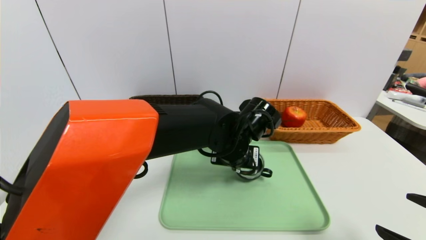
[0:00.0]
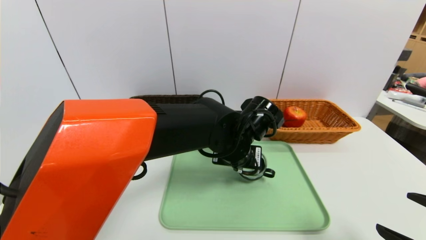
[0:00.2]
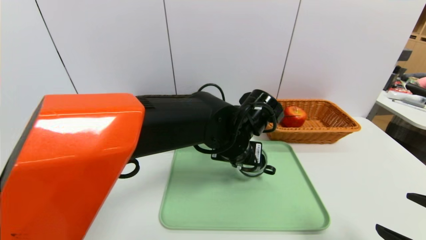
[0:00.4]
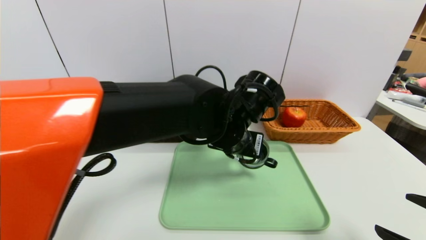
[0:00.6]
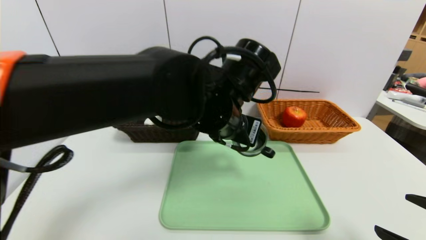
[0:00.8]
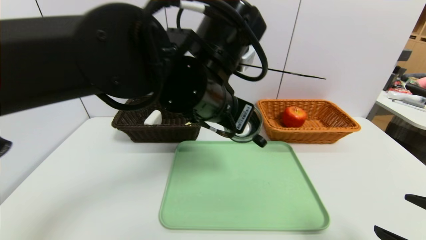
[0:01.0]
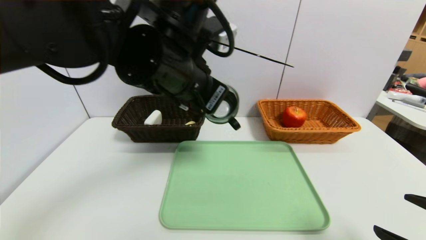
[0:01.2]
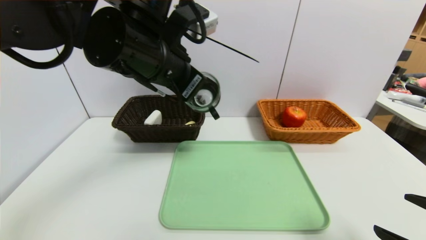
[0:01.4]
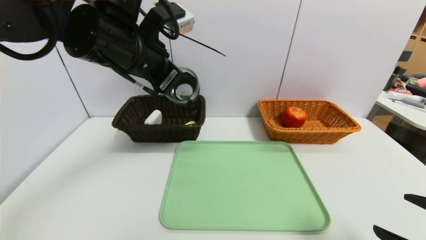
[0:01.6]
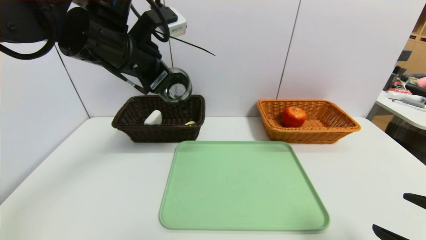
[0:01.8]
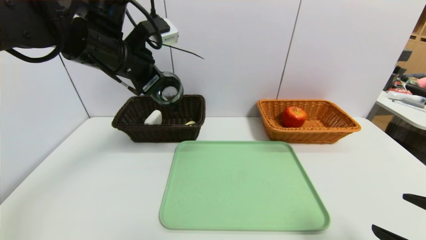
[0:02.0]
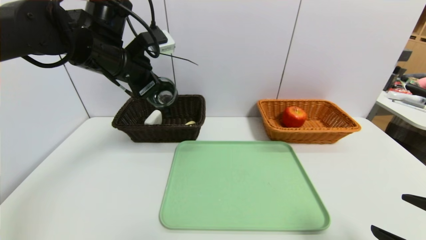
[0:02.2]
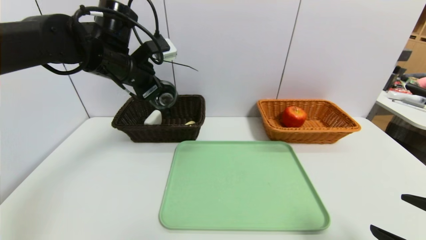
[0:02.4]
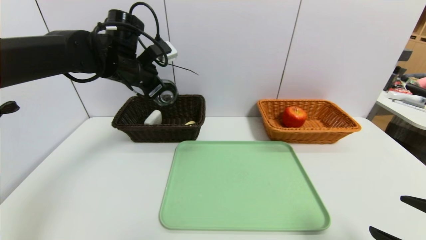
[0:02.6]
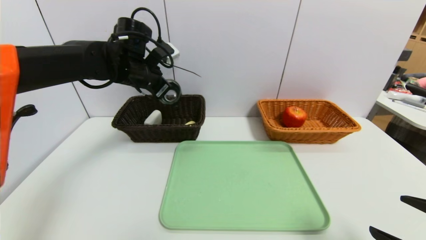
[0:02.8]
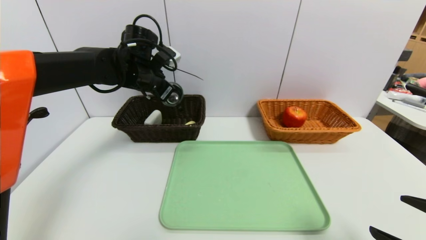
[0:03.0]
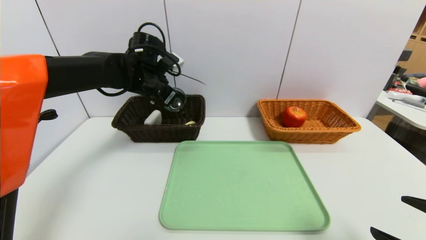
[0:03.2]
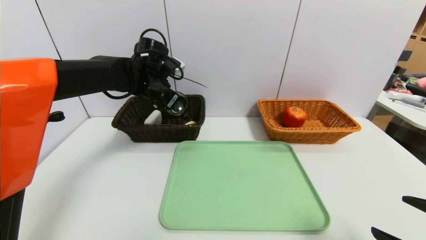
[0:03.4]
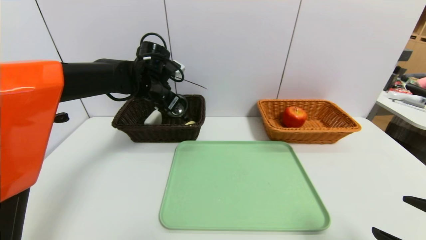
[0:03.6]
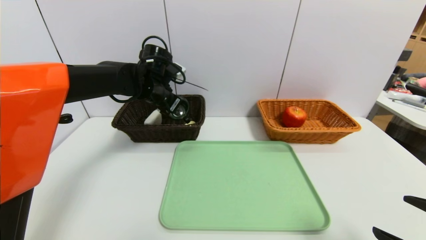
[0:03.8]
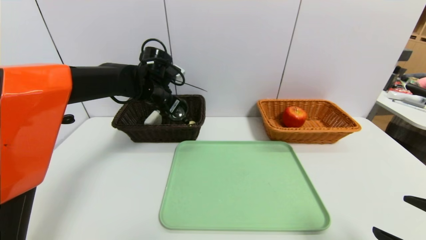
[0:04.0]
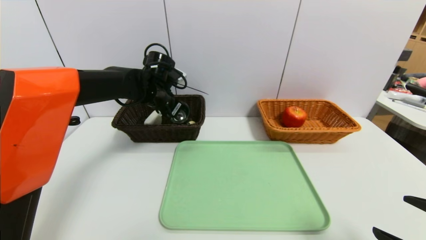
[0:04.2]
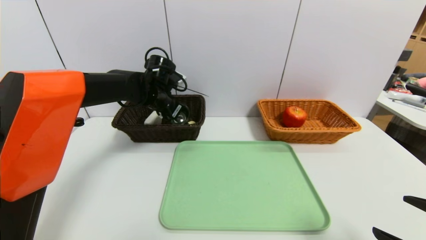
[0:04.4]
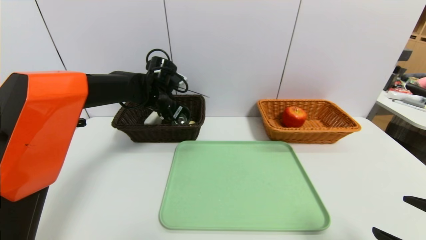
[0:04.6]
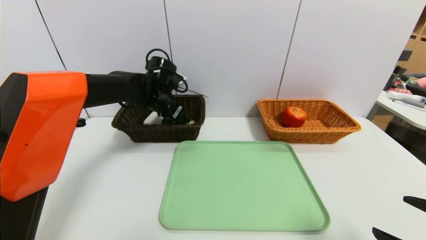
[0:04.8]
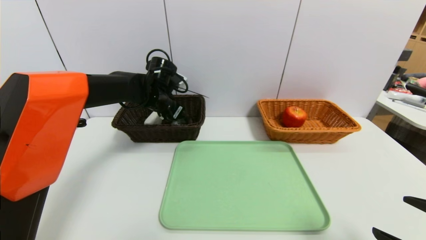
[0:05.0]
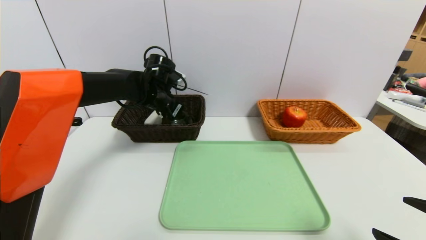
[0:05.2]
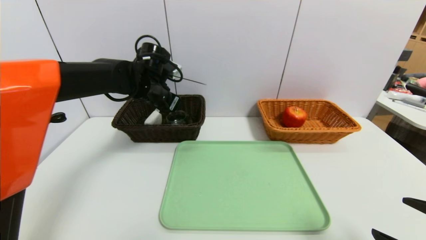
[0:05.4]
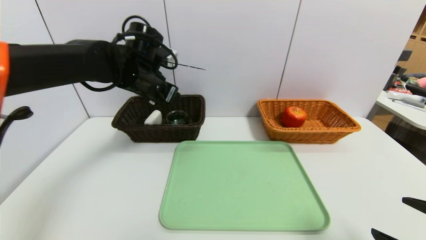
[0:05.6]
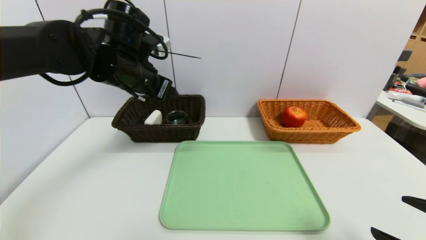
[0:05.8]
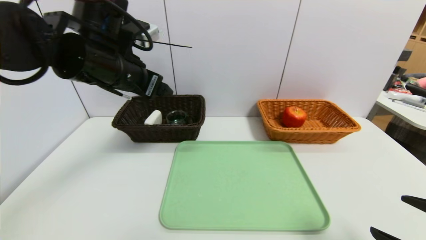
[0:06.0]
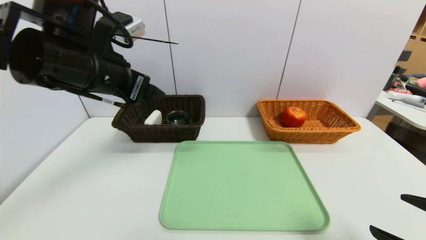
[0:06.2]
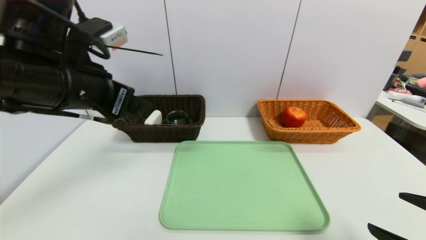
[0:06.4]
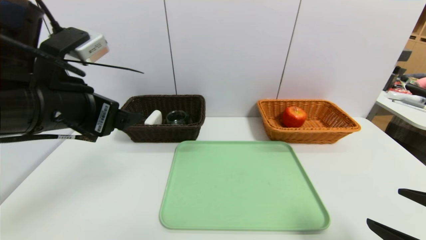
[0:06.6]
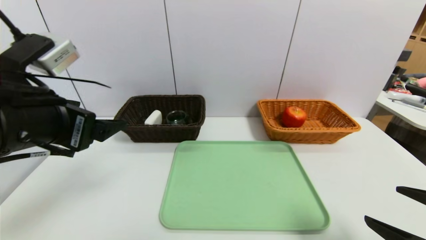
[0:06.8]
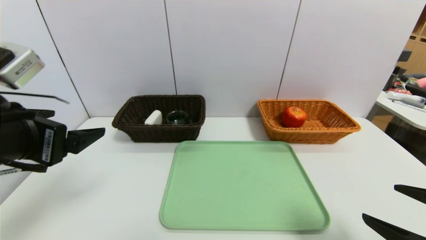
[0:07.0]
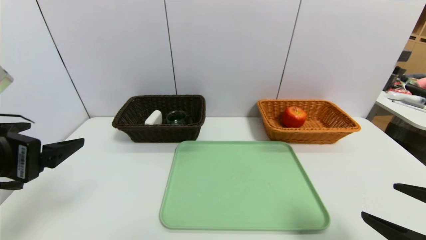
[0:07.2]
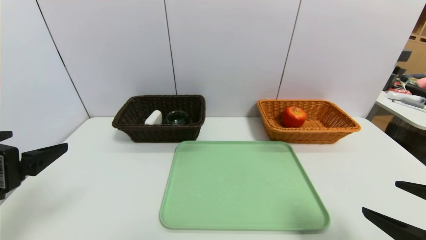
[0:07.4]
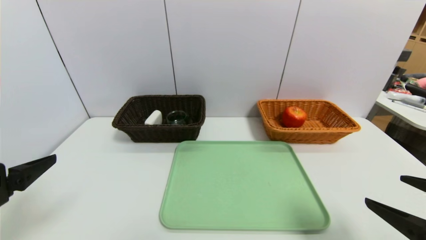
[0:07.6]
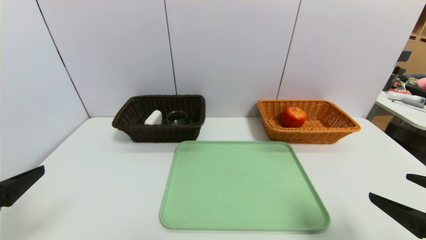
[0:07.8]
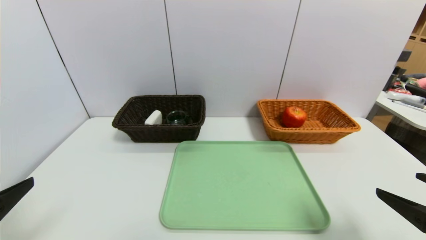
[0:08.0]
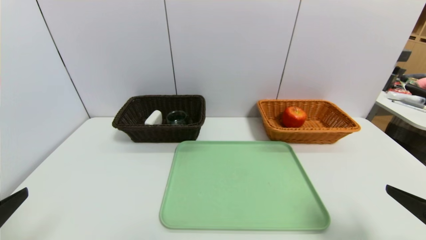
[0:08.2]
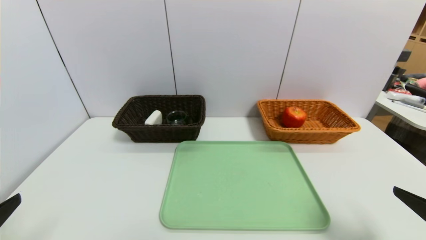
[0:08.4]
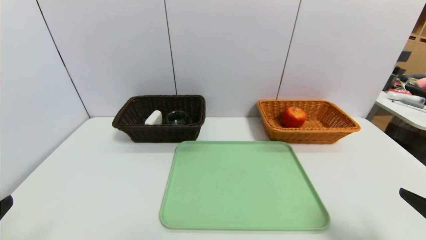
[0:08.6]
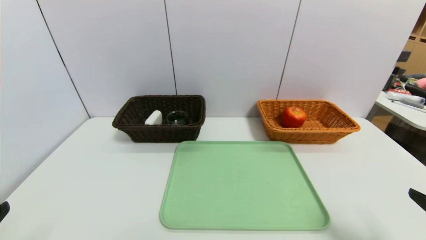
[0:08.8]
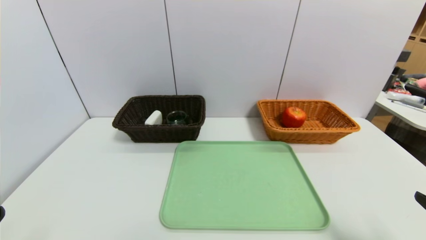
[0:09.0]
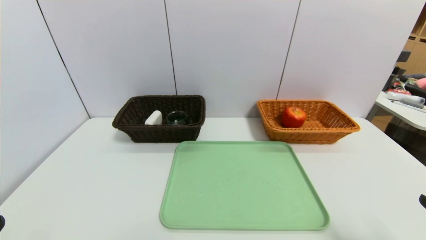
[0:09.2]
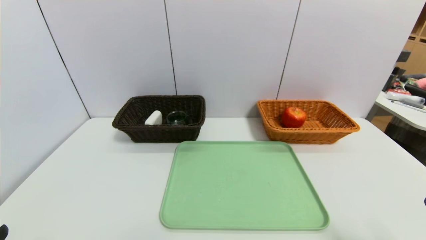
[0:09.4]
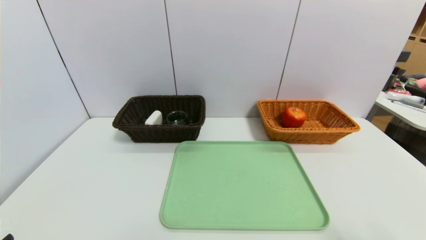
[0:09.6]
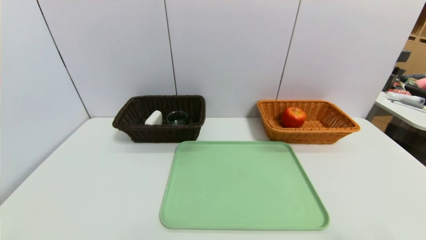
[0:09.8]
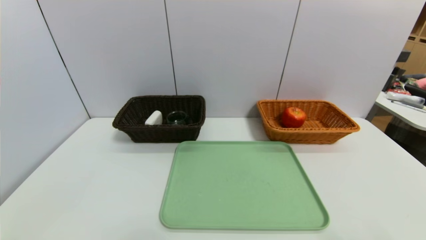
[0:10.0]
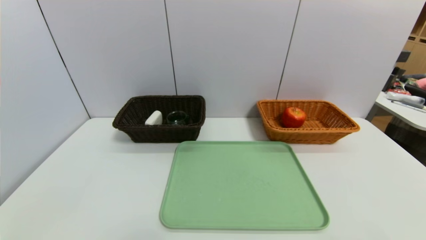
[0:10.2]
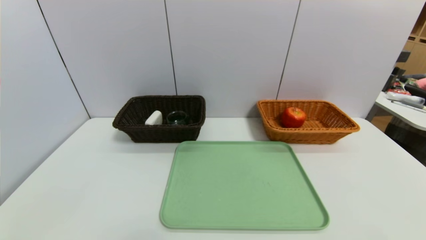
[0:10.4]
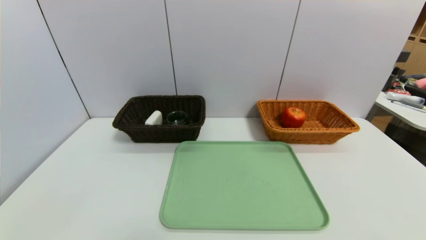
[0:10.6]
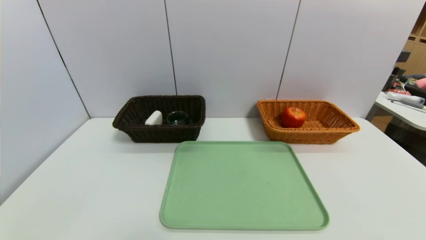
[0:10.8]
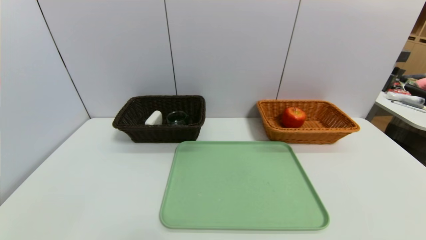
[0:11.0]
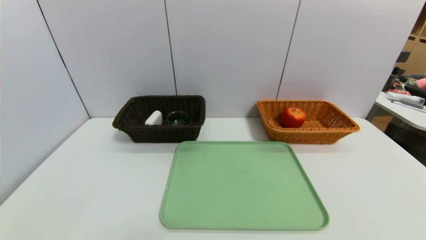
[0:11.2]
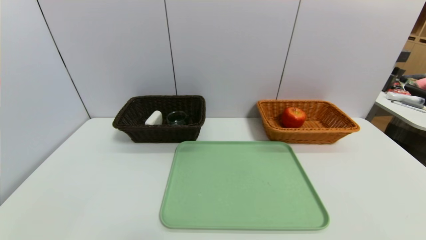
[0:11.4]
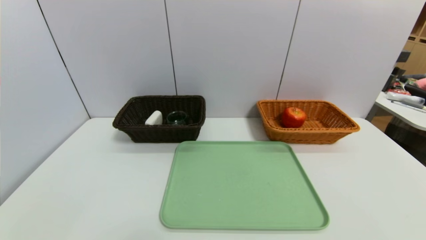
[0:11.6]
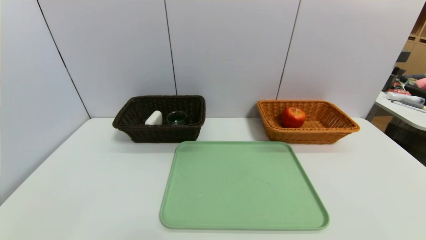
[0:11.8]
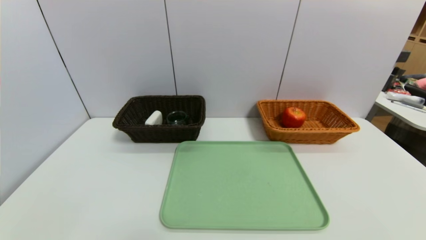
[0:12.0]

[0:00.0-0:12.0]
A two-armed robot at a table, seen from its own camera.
Task of the whole recording: place the food in the right basket with the right gripper, and place the non food items in the left basket with the left gripper.
Step, 0:00.0 to 0:06.0: Grasp the black glass cup and put it in the left basket.
0:00.0 to 0:01.6: The left gripper shifts some 25 cm upward and to the left.
0:01.6 to 0:03.0: The left gripper moves forward and downward, approximately 15 cm.
0:03.0 to 0:04.4: The left gripper shifts approximately 5 cm downward.
0:04.4 to 0:06.0: The left gripper travels backward and upward by about 20 cm, and opens.
0:06.0 to 0:07.6: The left gripper travels backward and to the left by some 25 cm.
0:07.6 to 0:09.0: The left gripper is displaced backward and downward by roughly 10 cm.
0:09.0 to 0:10.4: The right gripper travels backward by approximately 5 cm.

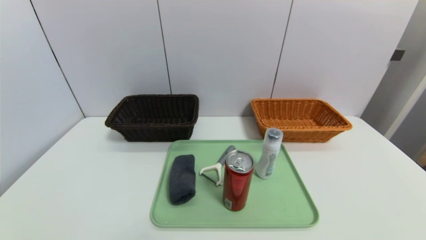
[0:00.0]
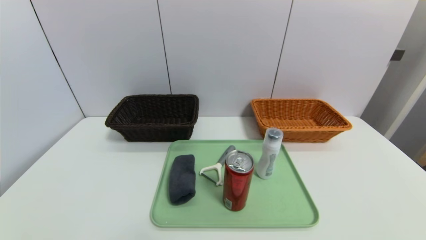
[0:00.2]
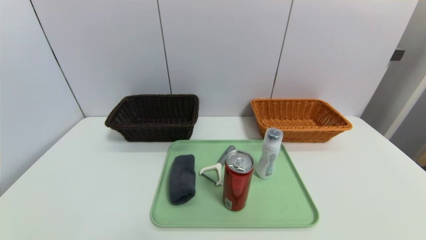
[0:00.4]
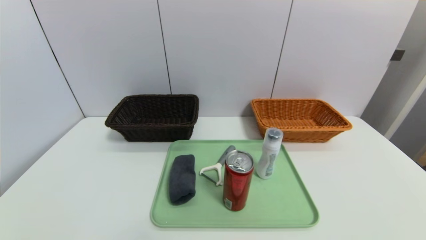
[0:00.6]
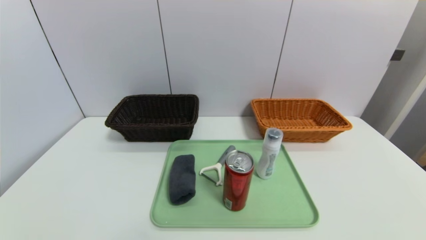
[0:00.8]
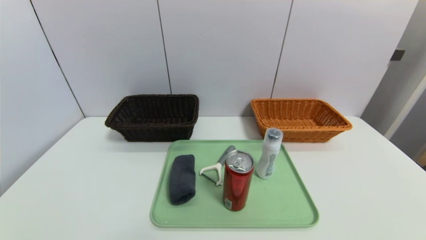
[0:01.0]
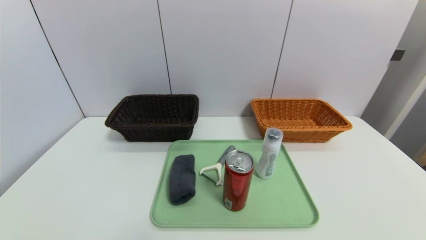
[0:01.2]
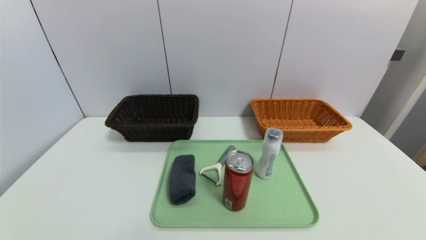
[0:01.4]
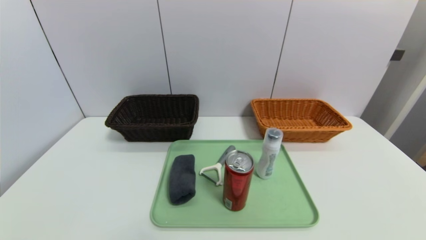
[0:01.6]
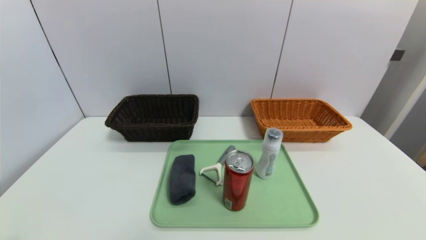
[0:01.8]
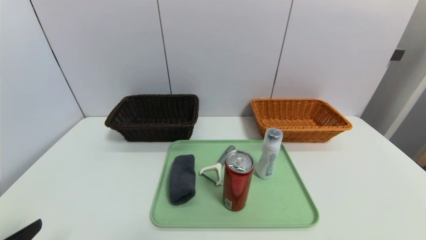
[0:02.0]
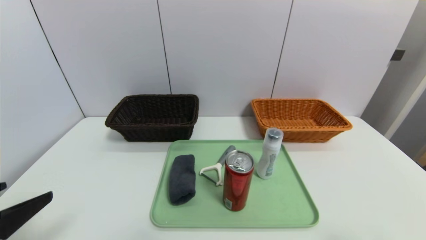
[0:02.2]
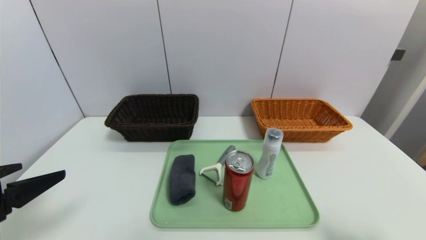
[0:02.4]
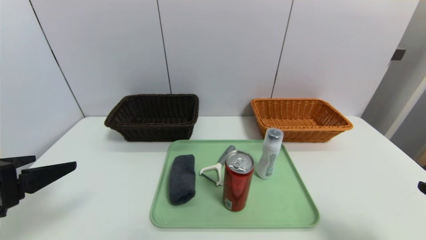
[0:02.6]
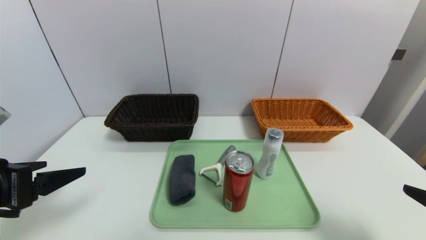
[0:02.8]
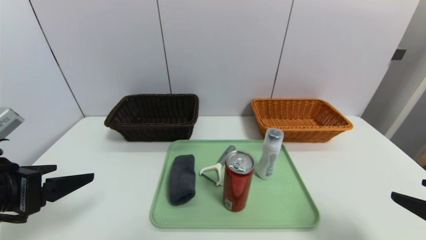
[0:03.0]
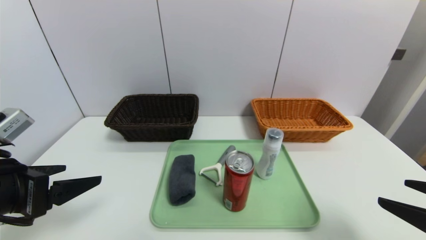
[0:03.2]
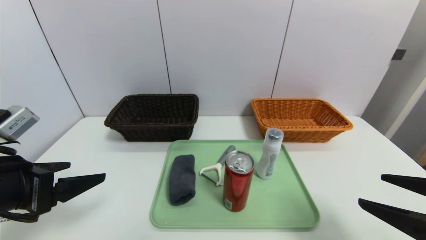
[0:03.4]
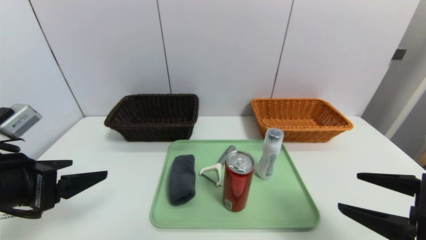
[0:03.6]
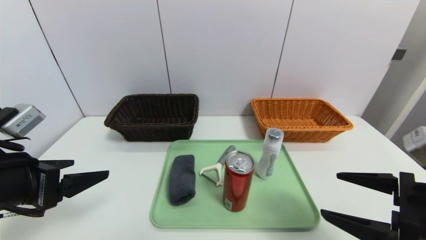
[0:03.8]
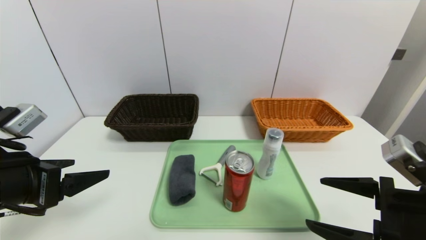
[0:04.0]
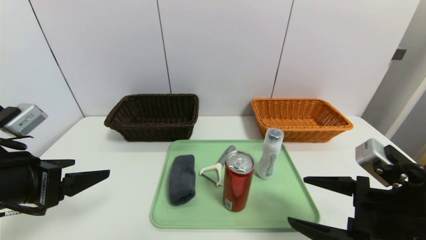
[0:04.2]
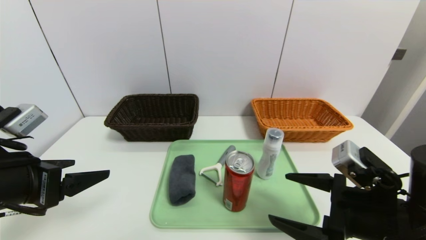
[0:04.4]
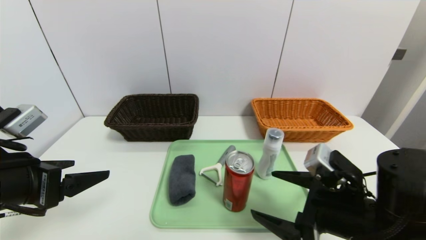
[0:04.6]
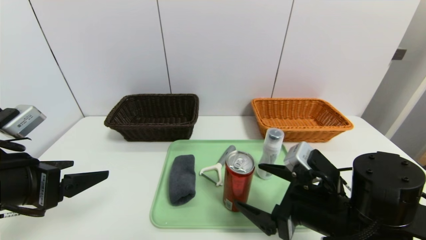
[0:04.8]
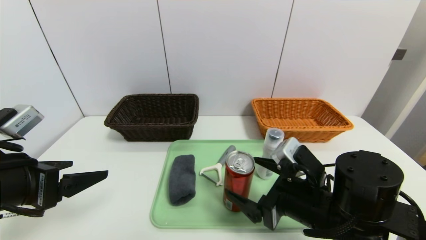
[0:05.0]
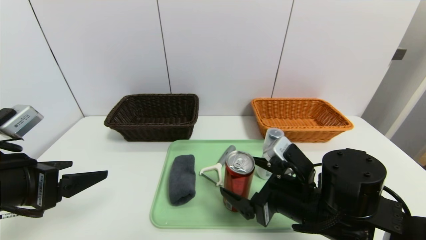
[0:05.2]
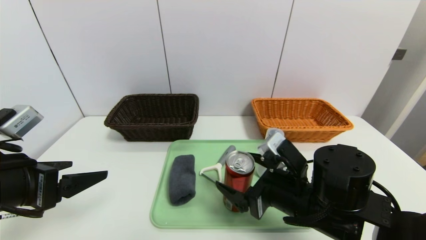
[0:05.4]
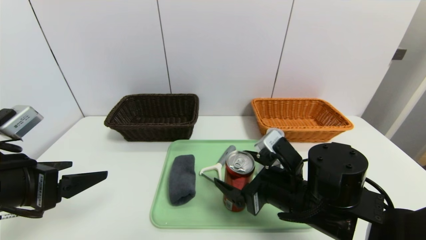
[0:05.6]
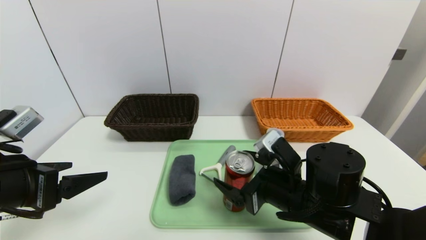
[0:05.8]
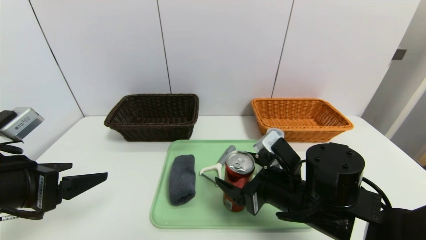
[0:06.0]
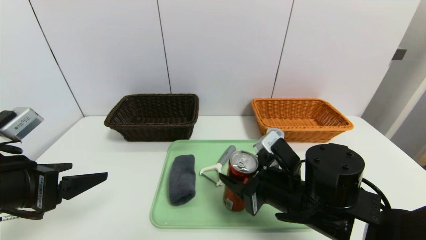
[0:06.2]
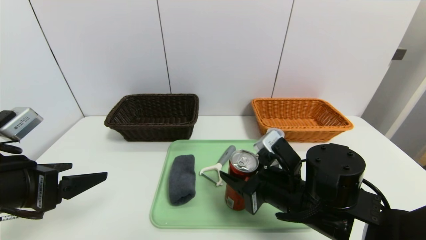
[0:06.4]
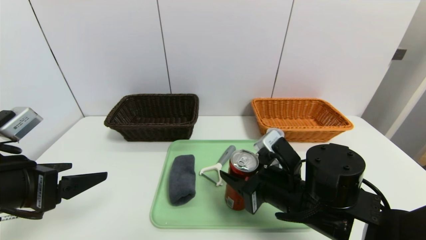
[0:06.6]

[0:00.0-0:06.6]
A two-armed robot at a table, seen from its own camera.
Task of the whole recording: place the food in the right basket with the right gripper, and place the non food items in the left basket with the left gripper.
0:01.6 to 0:03.2: Both grippers move forward and upward, some 15 cm.
0:03.2 to 0:05.0: The right gripper shifts about 20 cm to the left, forward and downward.
0:05.0 to 0:06.6: The right gripper closes its fingers.
